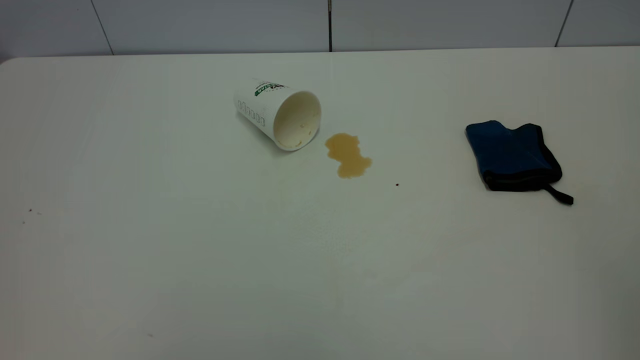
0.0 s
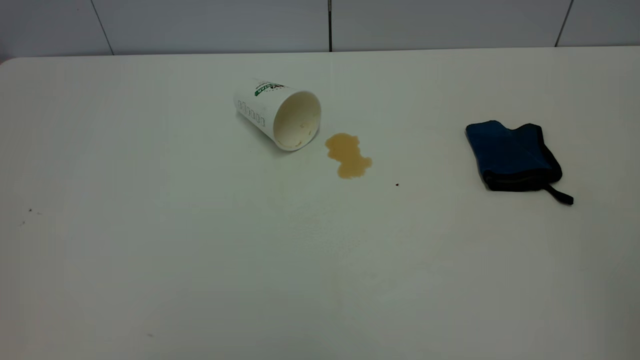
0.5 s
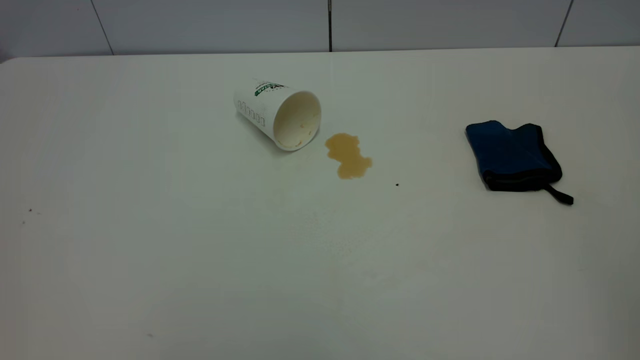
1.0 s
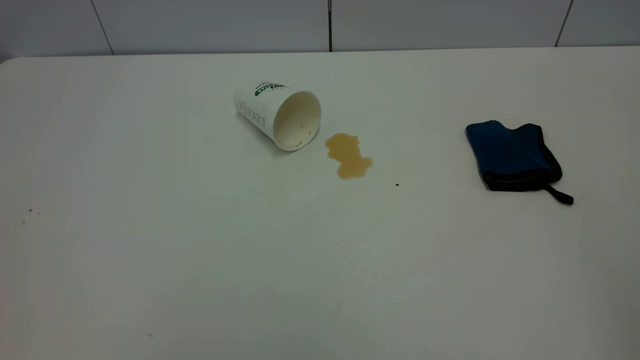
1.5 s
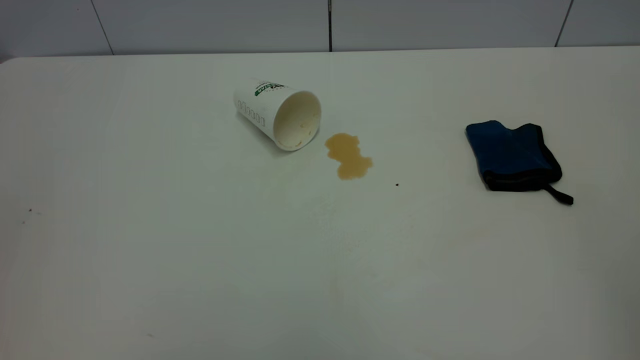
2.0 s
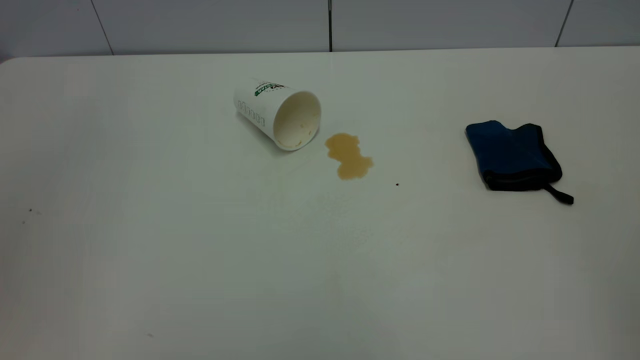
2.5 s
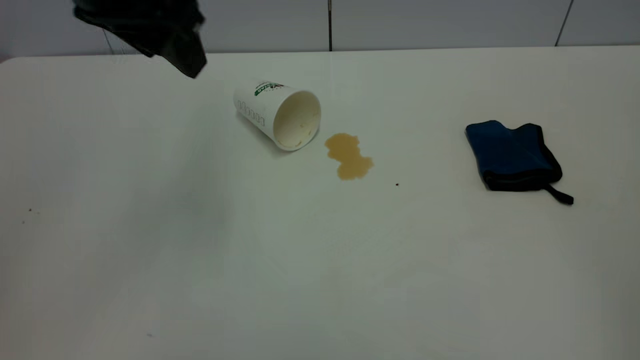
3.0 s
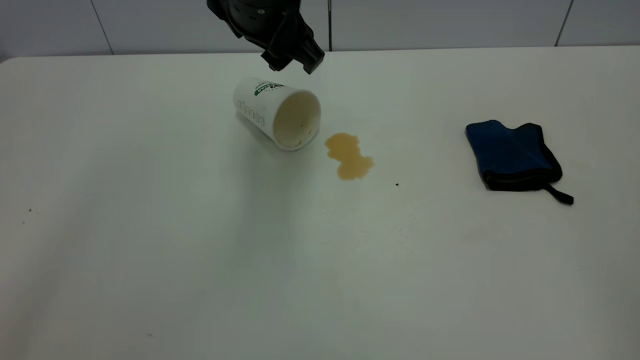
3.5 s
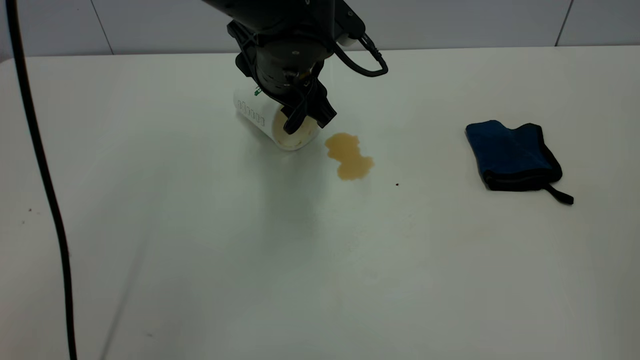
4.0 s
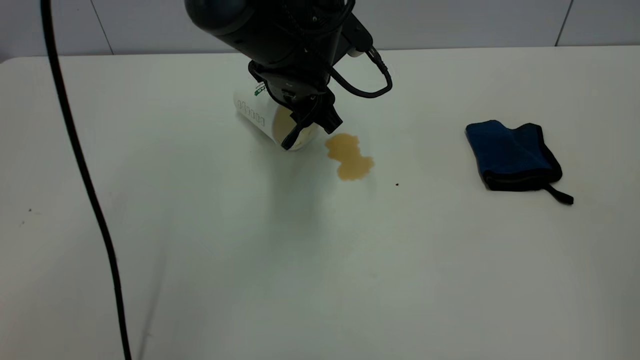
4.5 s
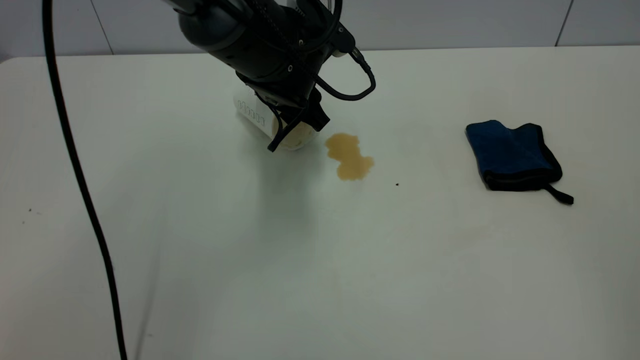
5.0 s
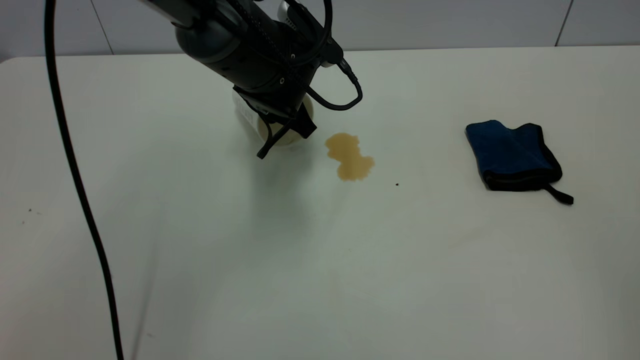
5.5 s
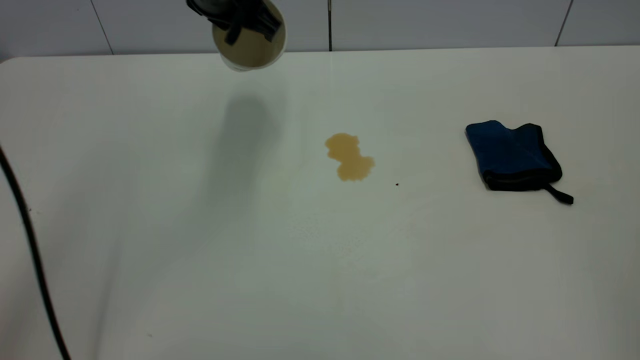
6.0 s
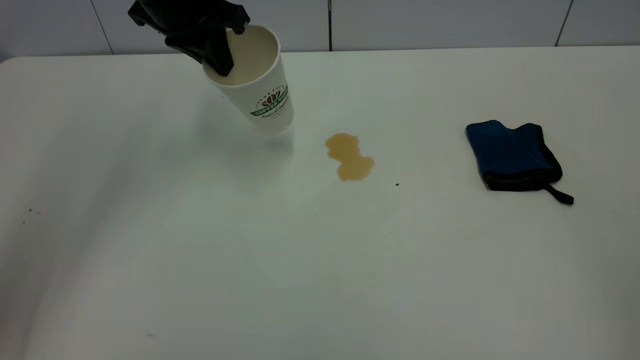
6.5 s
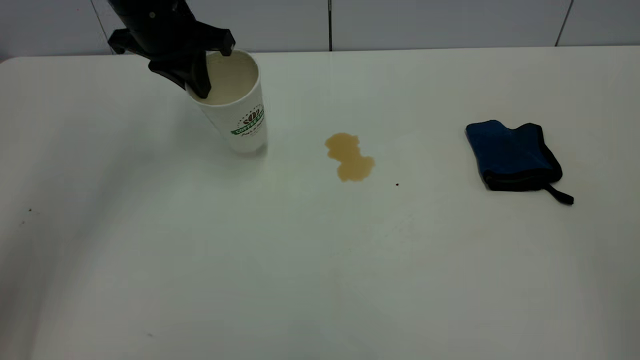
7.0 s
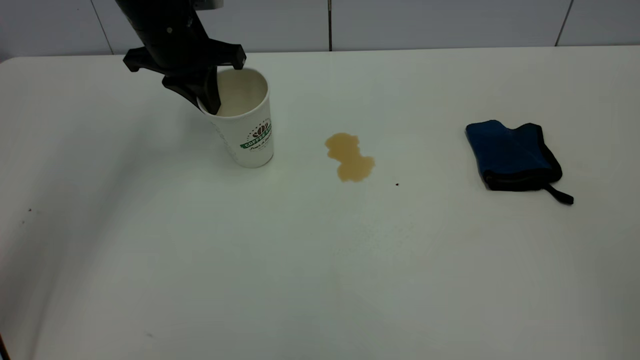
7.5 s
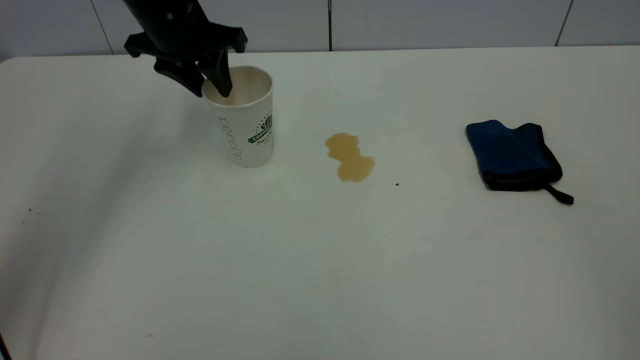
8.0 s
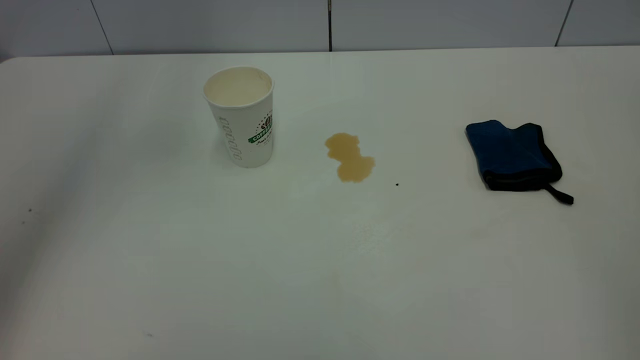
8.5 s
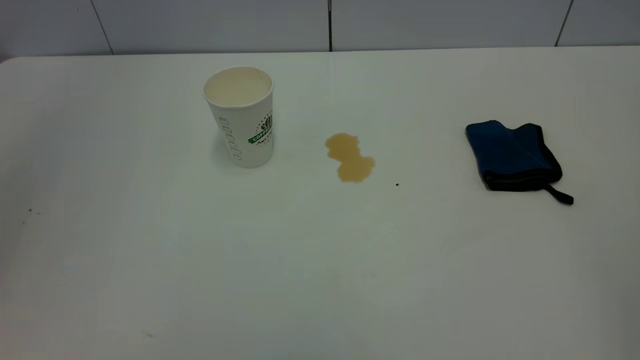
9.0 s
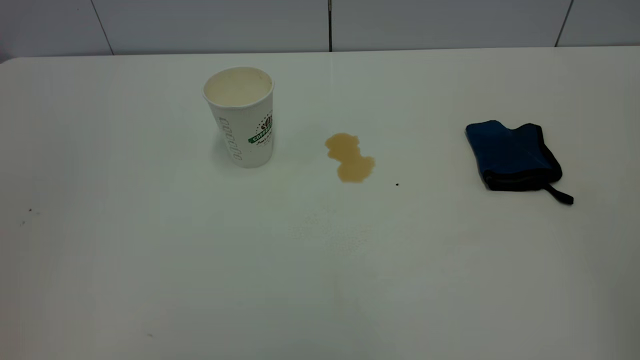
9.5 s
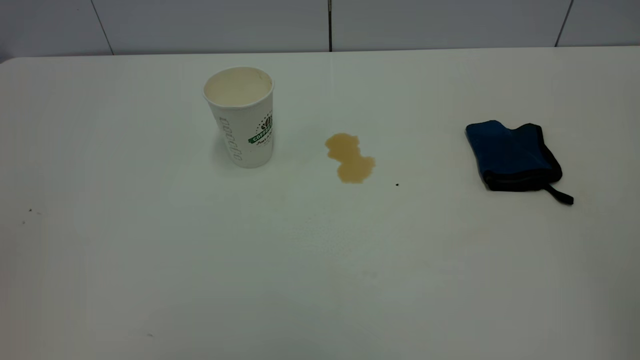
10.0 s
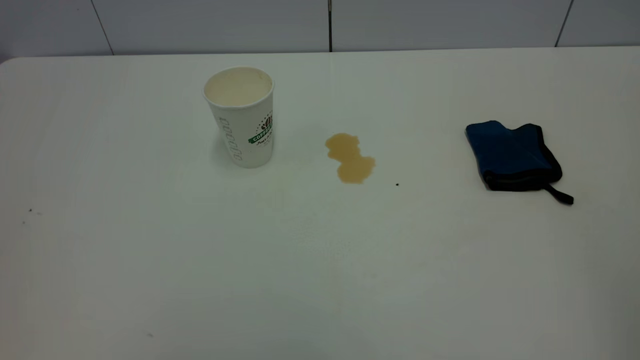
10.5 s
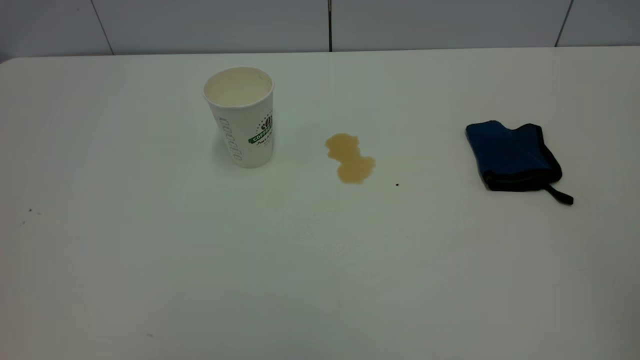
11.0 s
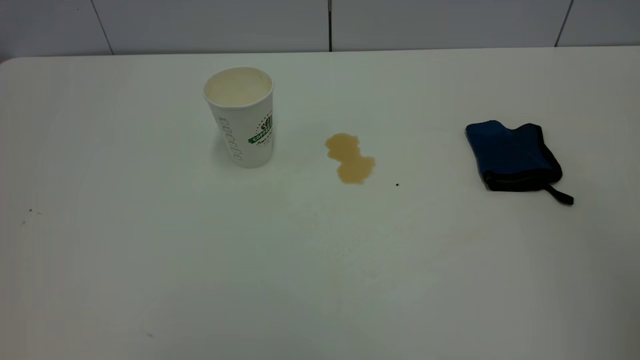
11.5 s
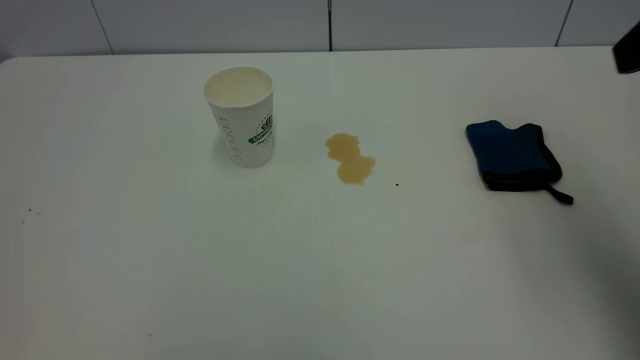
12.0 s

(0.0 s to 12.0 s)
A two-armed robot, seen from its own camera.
Task of the whole recording: the left gripper pick up the fallen cup and place it upright, the right gripper grasp the blue rag and wipe the tea stain on the table, the right gripper put the blue rag back in its original position.
Step, 0.0 s - 8.0 s: Stand the paper cup upright.
2.0 s - 4.0 s: The left gripper goes approximately 50 cm forward, to the right and downward.
4.0 s - 6.0 s: The left gripper heads upward and to the left, covering approximately 10 cm, and closes.
6.0 s - 8.0 s: The left gripper travels to the left by some 5 cm, and opens its fingers.
8.0 s - 10.0 s: The left gripper heads backward, covering approximately 40 cm.
10.0 s - 12.0 s: The right gripper is displaced forward by roughly 25 cm.

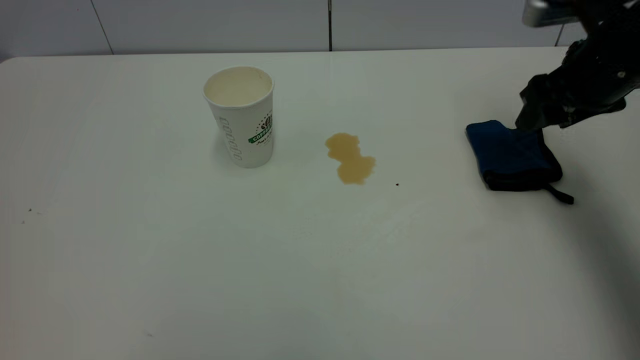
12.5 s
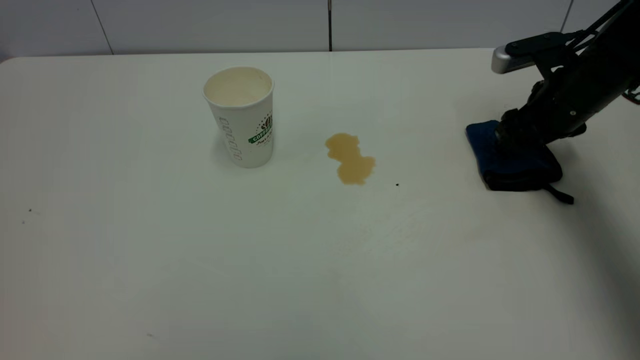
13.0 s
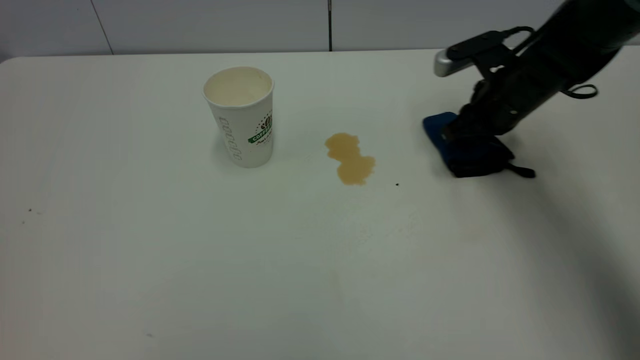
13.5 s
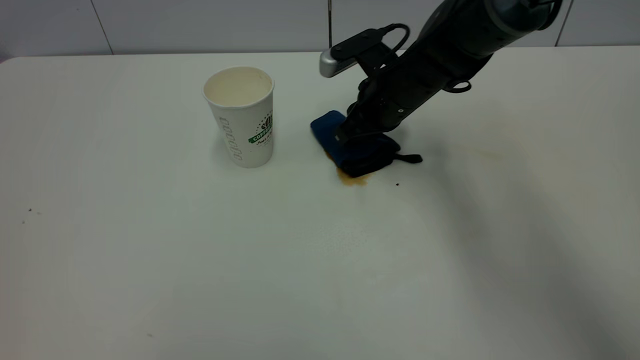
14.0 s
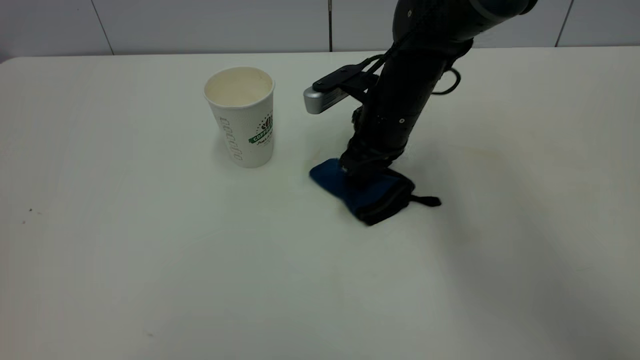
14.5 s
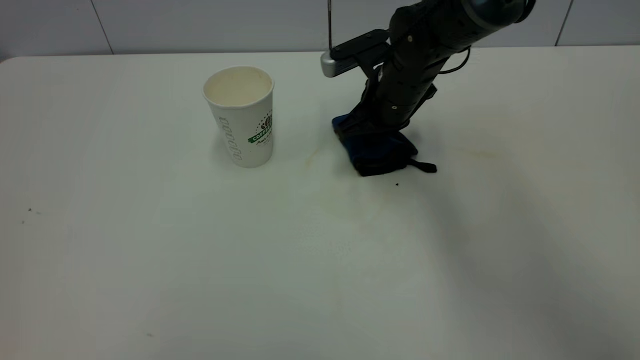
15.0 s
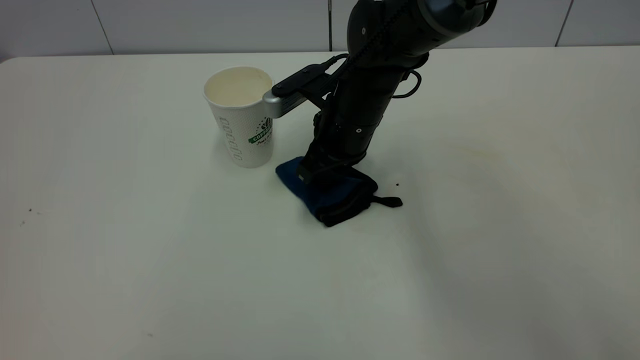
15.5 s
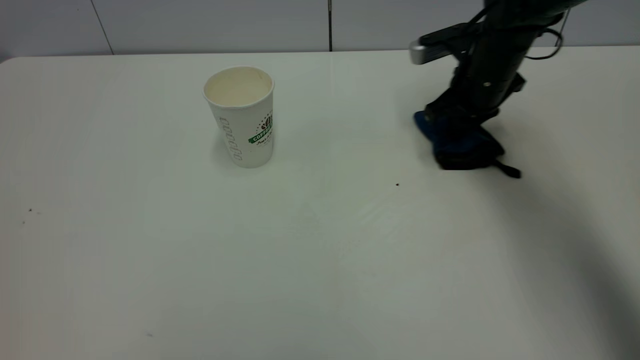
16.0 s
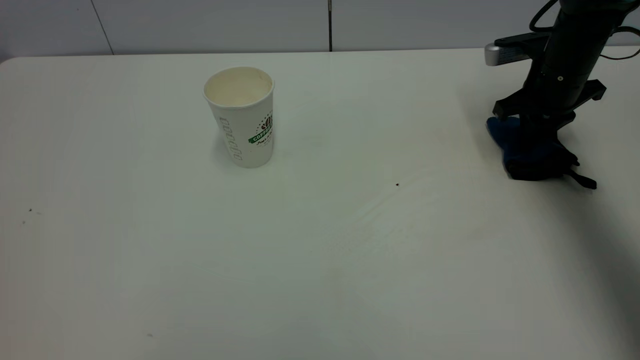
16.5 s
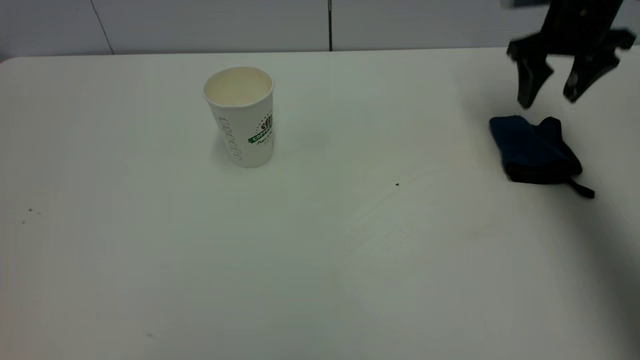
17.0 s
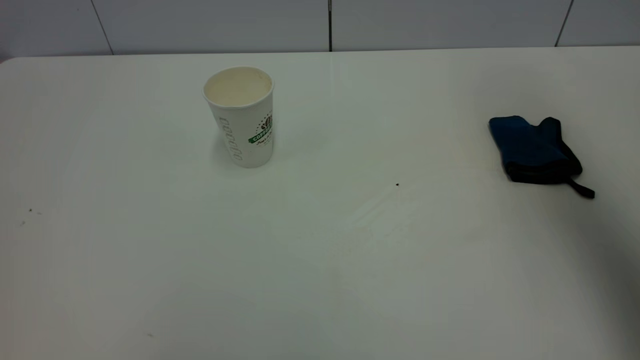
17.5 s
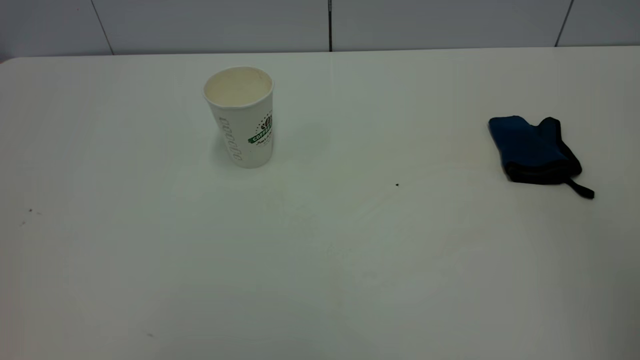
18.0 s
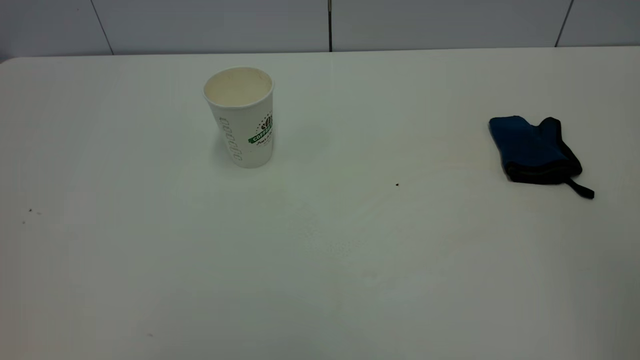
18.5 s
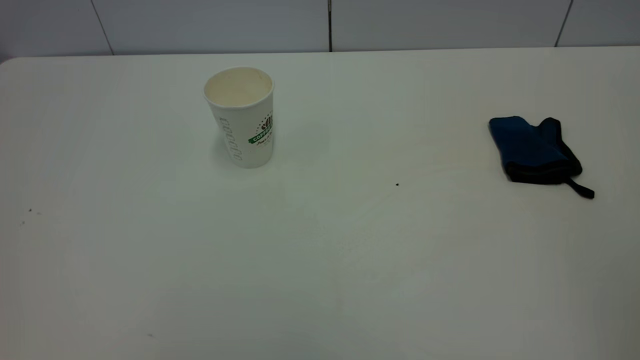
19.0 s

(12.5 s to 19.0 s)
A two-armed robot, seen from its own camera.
Task of the whole recording: the left gripper pick up the fallen cup and place it upright, the right gripper grasp the blue rag and wipe the tea stain on the table, the right gripper put the blue rag back in its original position.
Step, 12.5 s - 17.0 s: Wipe the stains off the table with a rag.
12.5 s - 14.5 s: The right gripper travels to the left by roughly 20 cm, and closes its fingers.
14.5 s - 17.0 s: The right gripper is displaced to the right and upward by roughly 20 cm, and opens its fingers.
17.0 s - 19.0 s: The right gripper goes approximately 50 cm backward.

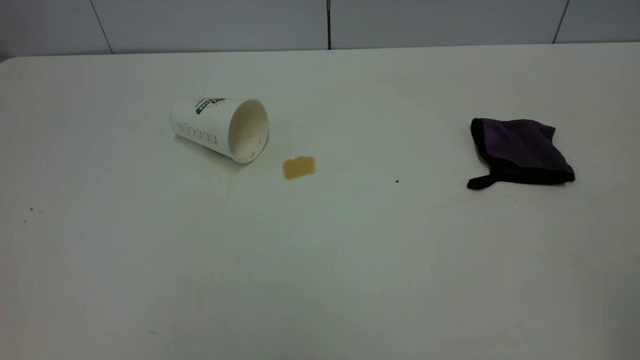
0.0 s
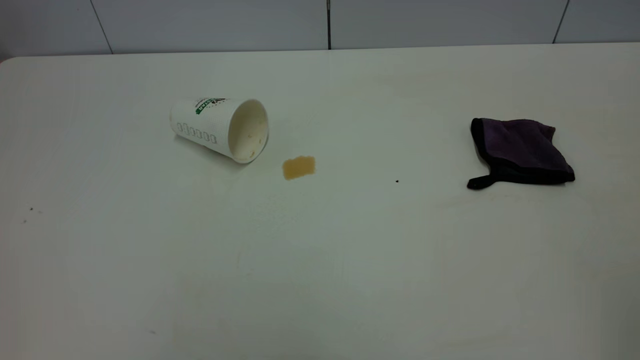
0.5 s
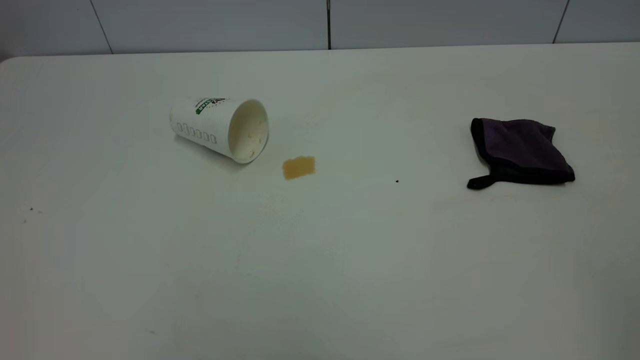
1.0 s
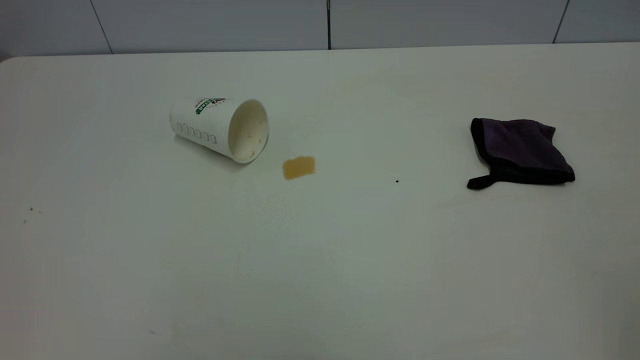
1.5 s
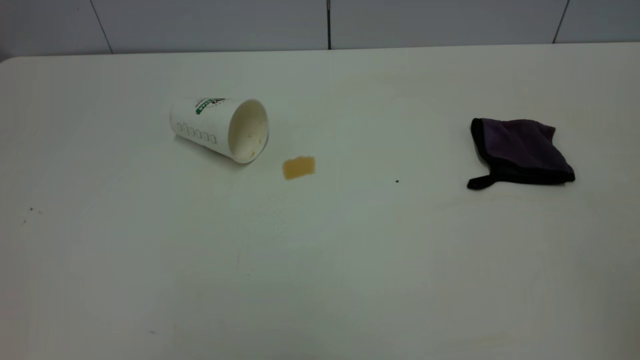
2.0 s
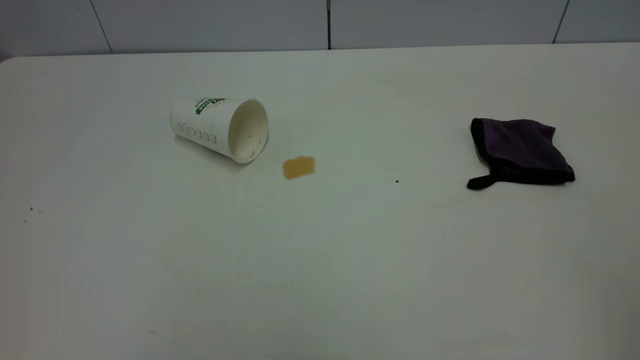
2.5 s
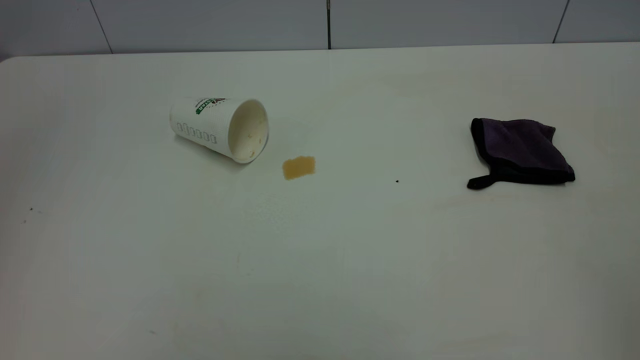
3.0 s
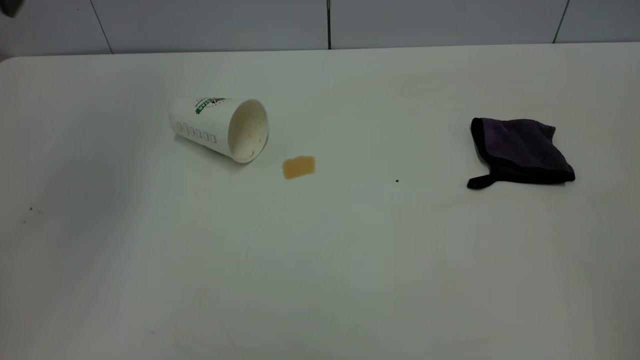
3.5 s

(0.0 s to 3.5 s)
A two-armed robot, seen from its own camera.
Task of the whole recording: the left gripper pick up the fallen cup and place it upright, the right gripper grasp the purple rag and wipe the tea stain on the table, the right gripper put the purple rag back in its original position.
0.0 s - 2.0 s: Both grippers stay about where they are.
2.0 s - 3.5 s: The left gripper goes roughly 35 cm forward.
